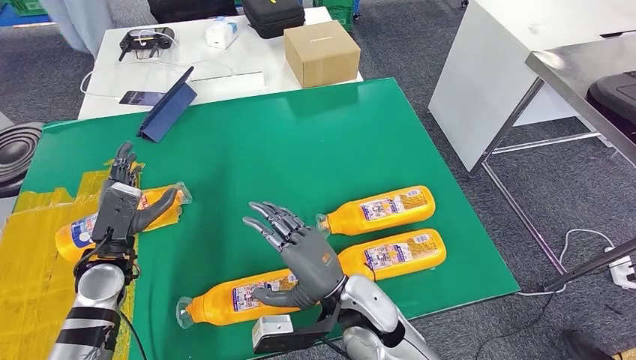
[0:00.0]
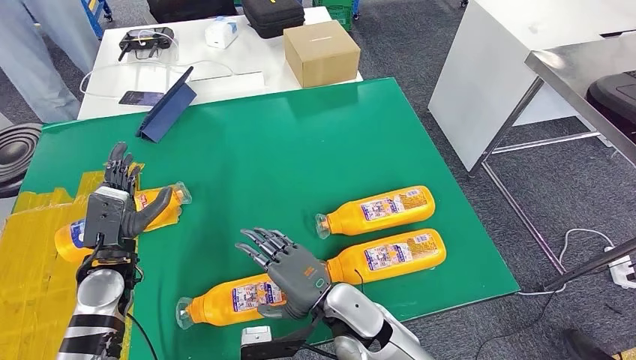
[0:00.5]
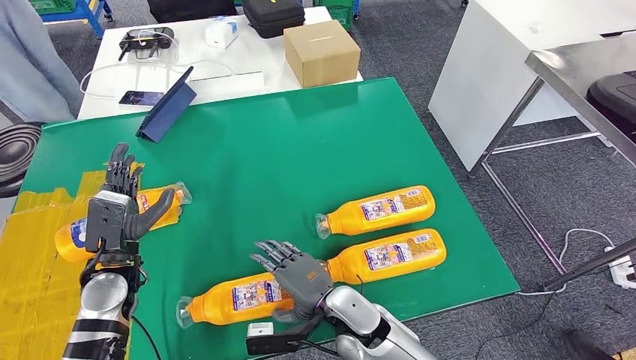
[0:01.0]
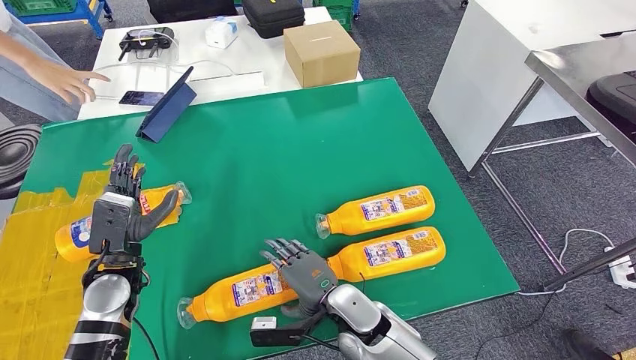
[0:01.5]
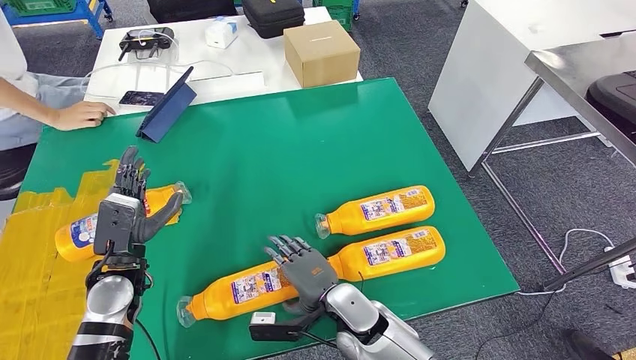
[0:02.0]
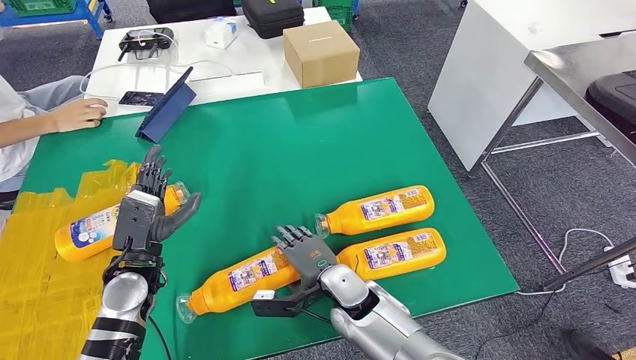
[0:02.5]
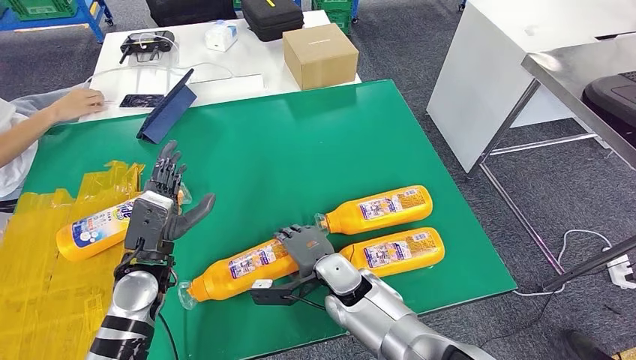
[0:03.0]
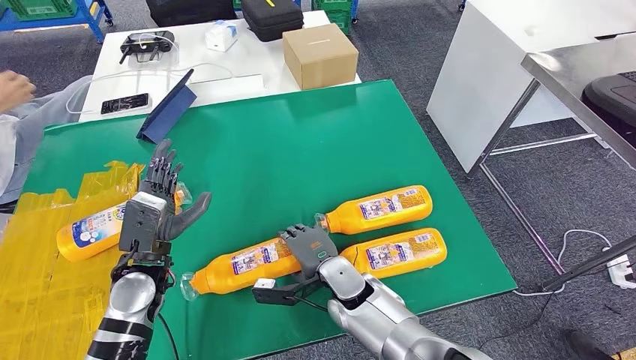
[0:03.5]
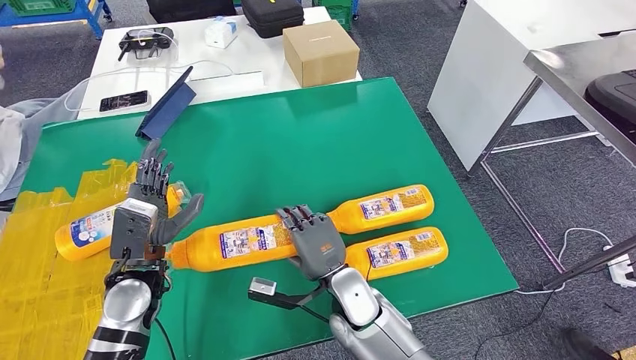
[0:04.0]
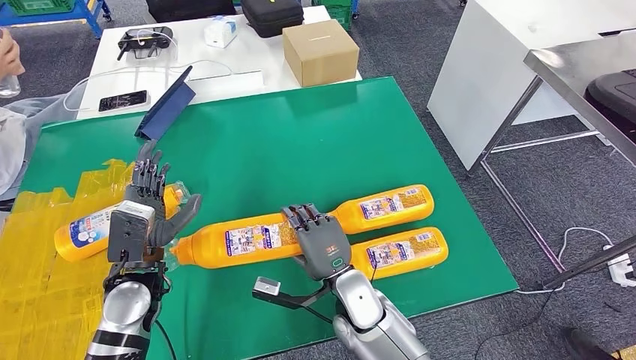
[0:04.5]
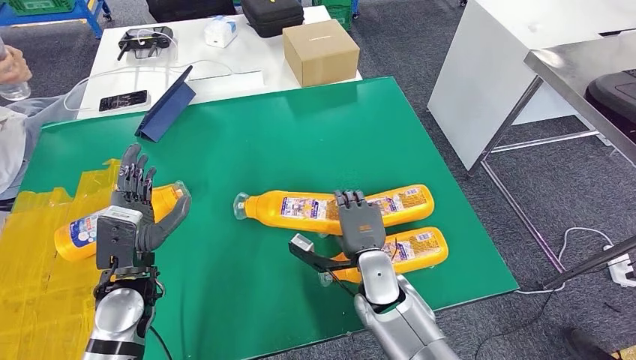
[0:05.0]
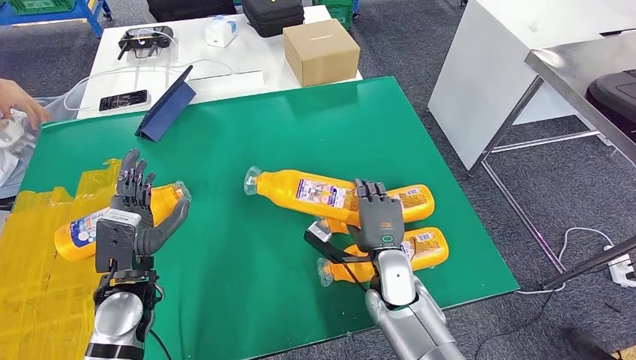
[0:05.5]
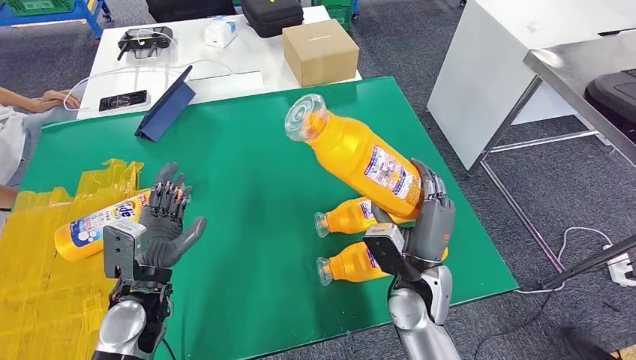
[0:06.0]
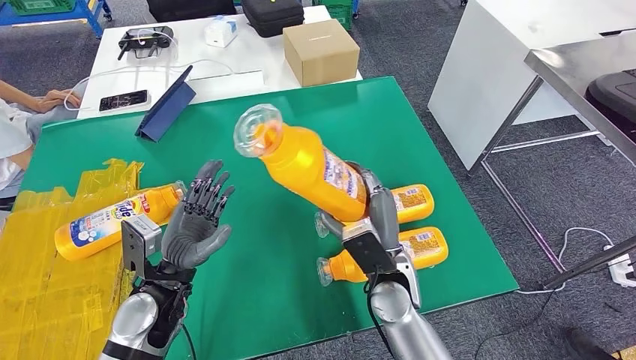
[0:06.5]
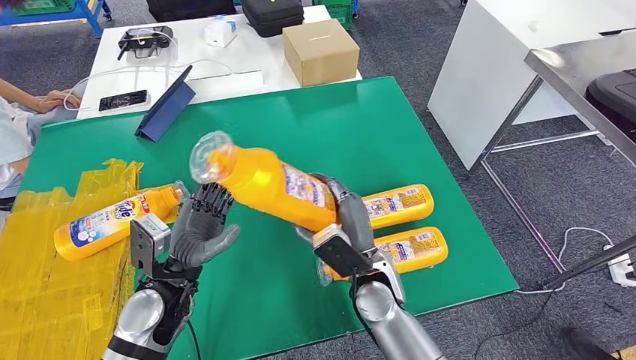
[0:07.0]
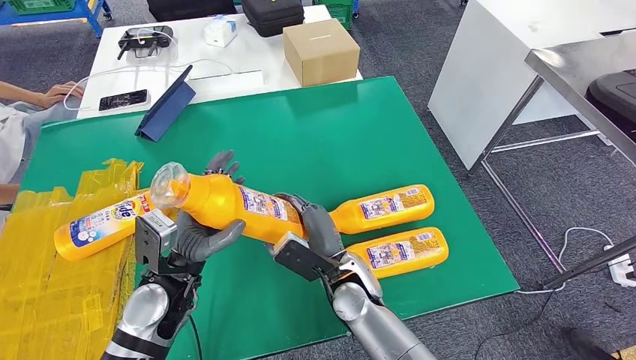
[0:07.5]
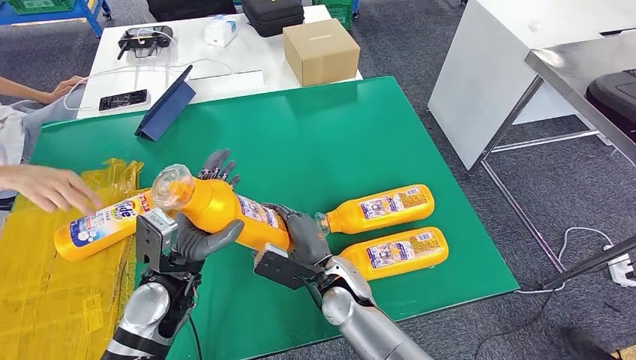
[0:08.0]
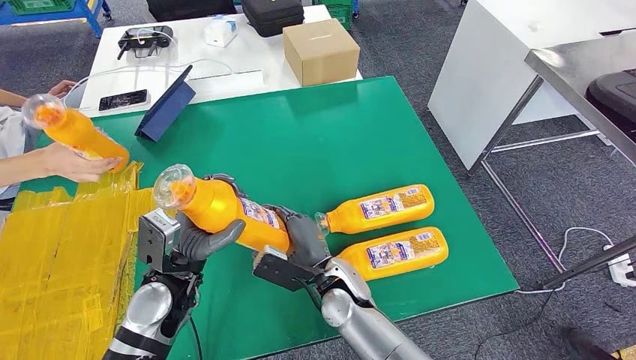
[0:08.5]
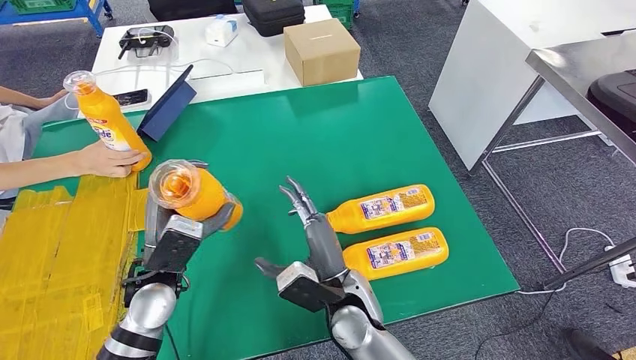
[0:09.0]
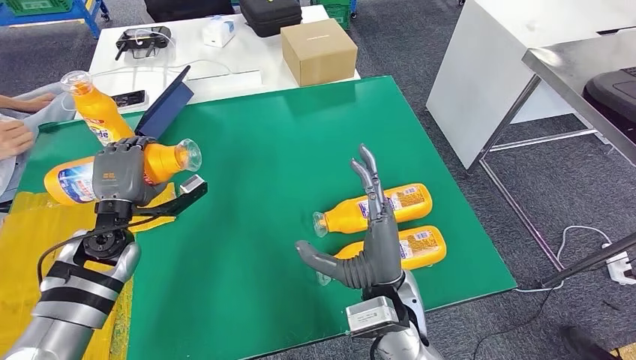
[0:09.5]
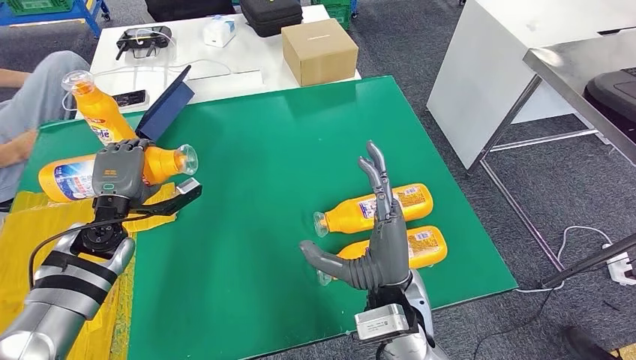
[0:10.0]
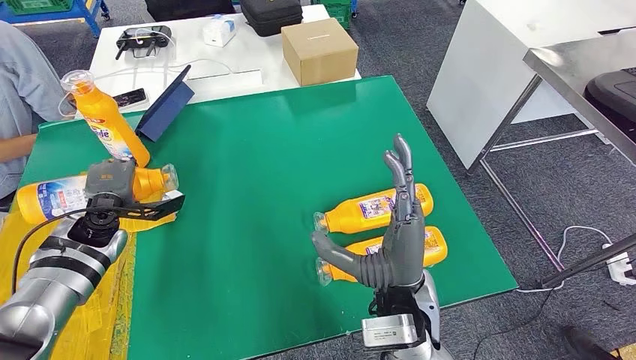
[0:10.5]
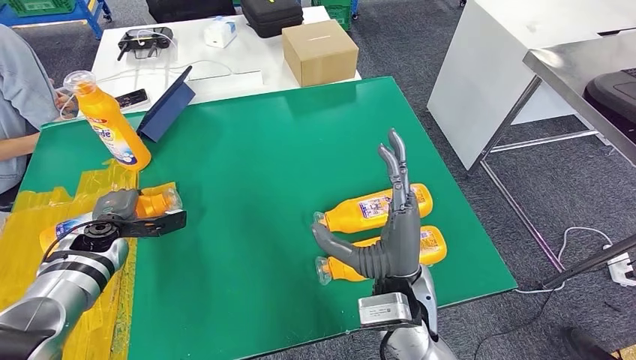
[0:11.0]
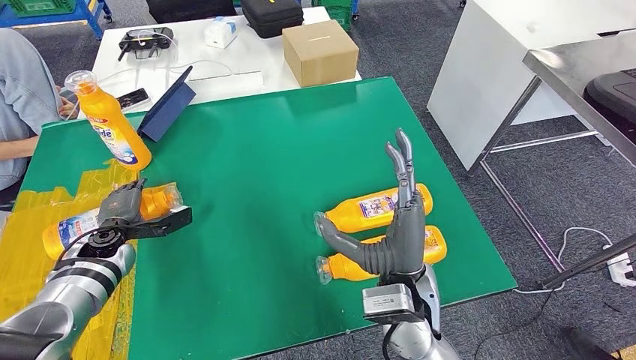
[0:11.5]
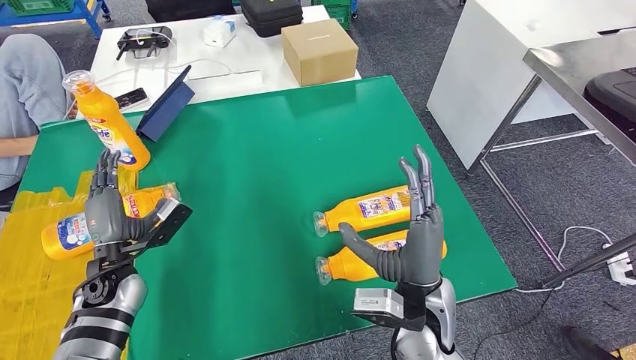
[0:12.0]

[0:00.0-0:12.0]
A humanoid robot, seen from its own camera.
Step, 0:03.0 to 0:05.5: Pick up the fast-moving consumer goods bottle from the table.
0:00.0 to 0:02.0: The right hand goes approximately 10 cm downward.
0:04.0 to 0:06.0: The right hand moves to the right, approximately 10 cm.
0:10.0 to 0:12.0: The left hand moves downward and backward, roughly 10 cm.

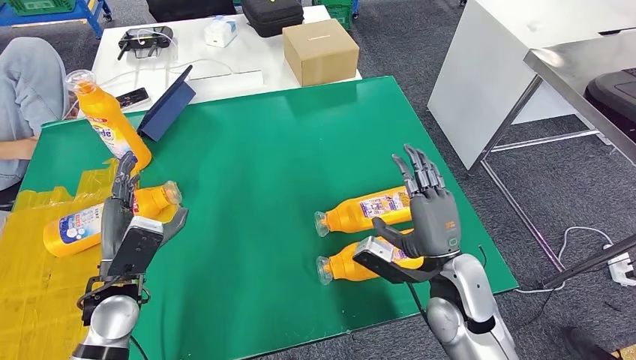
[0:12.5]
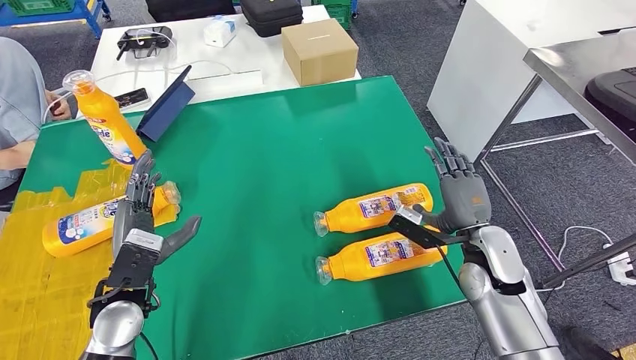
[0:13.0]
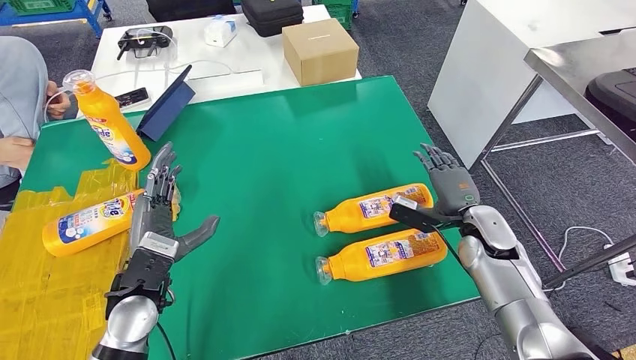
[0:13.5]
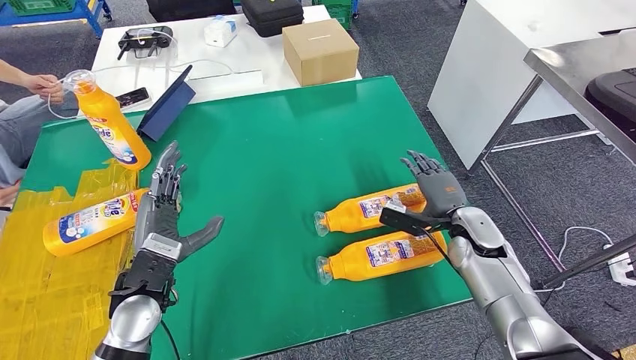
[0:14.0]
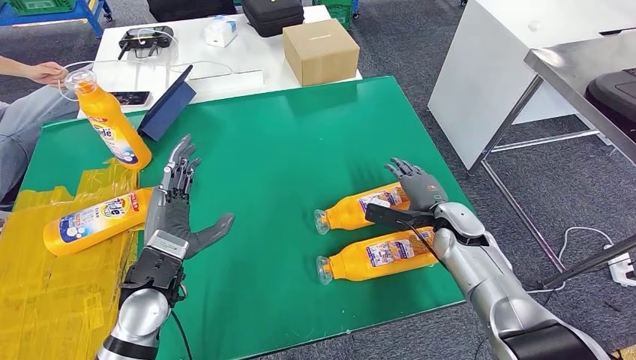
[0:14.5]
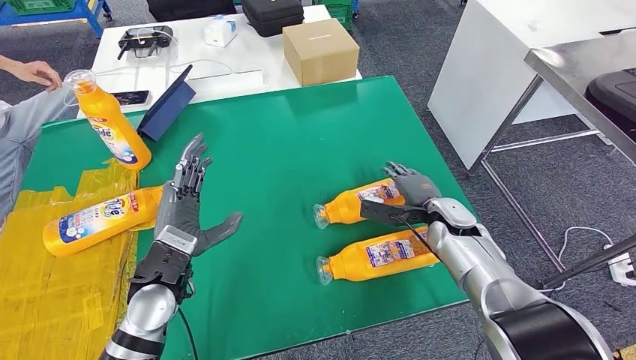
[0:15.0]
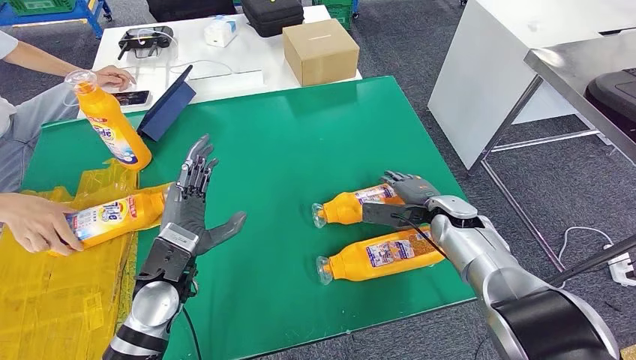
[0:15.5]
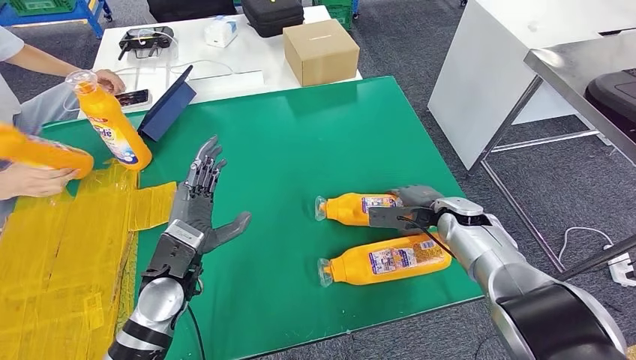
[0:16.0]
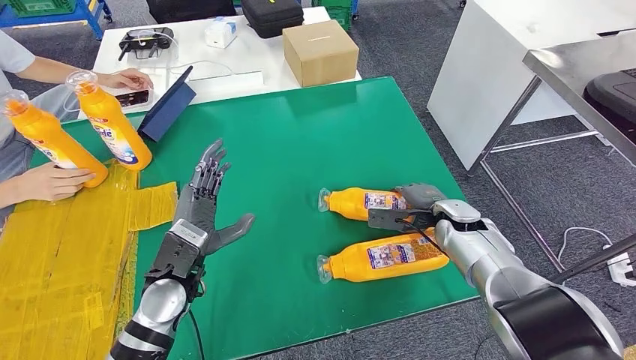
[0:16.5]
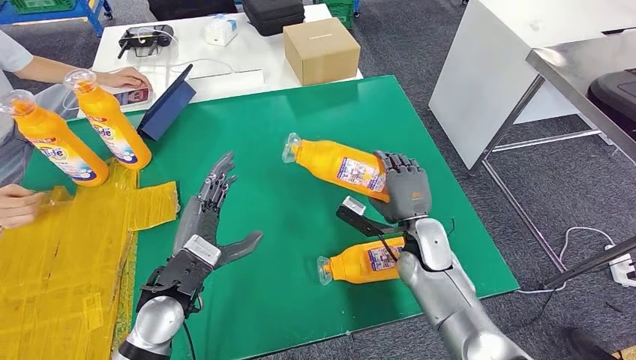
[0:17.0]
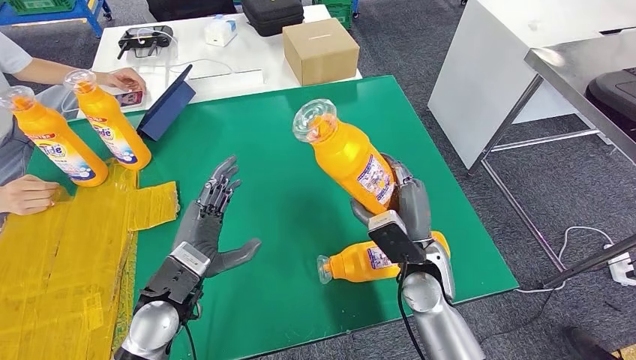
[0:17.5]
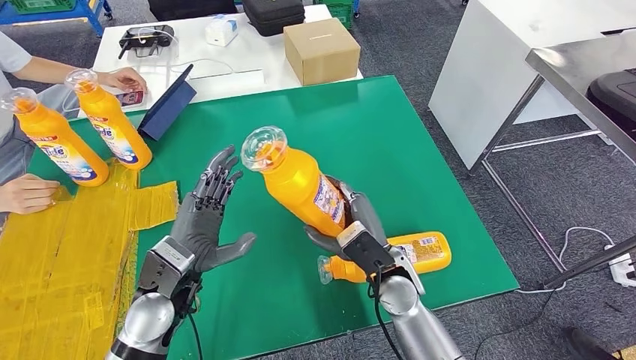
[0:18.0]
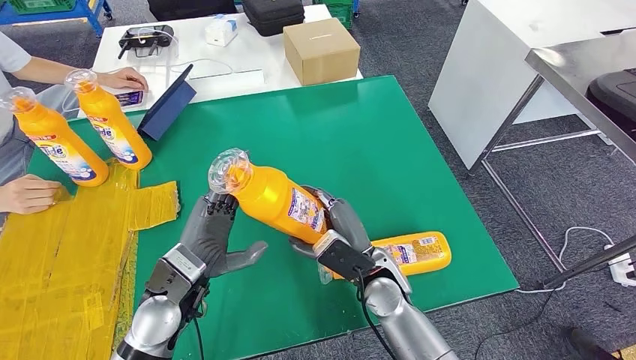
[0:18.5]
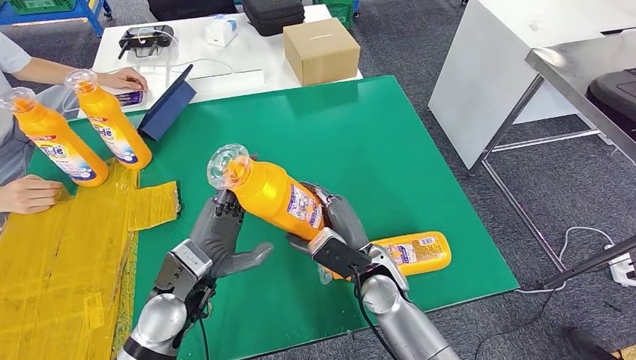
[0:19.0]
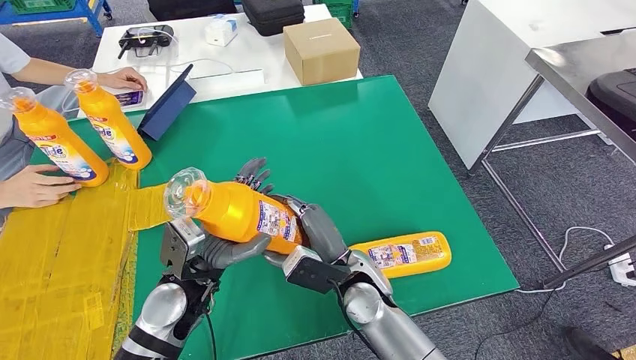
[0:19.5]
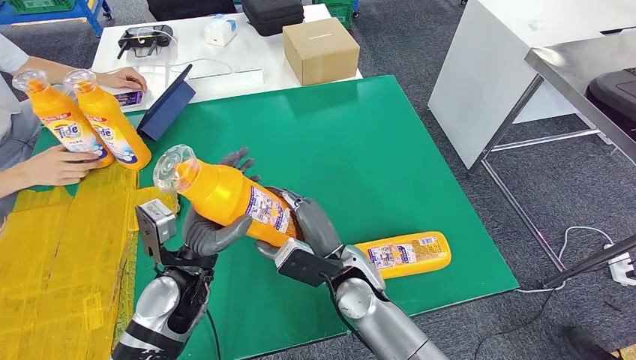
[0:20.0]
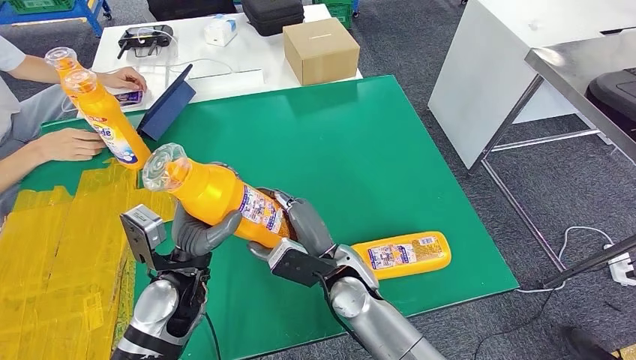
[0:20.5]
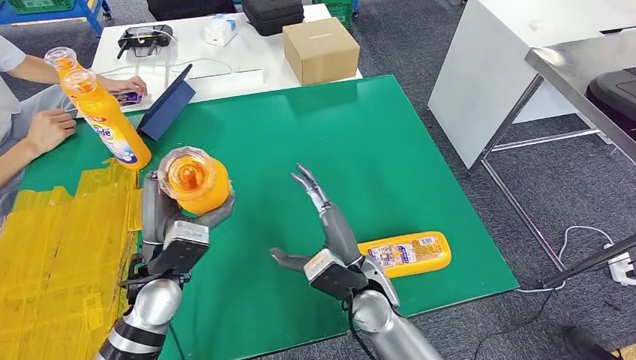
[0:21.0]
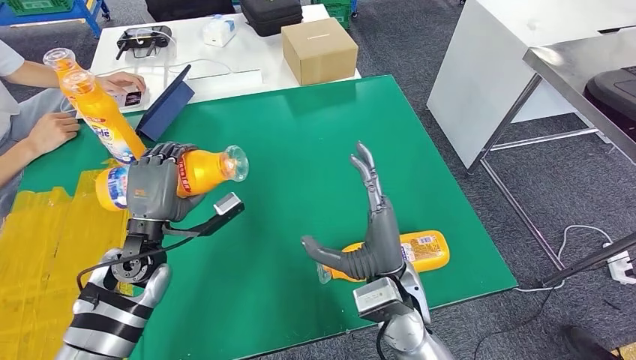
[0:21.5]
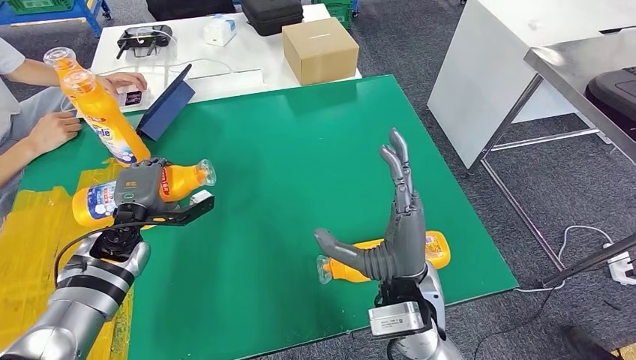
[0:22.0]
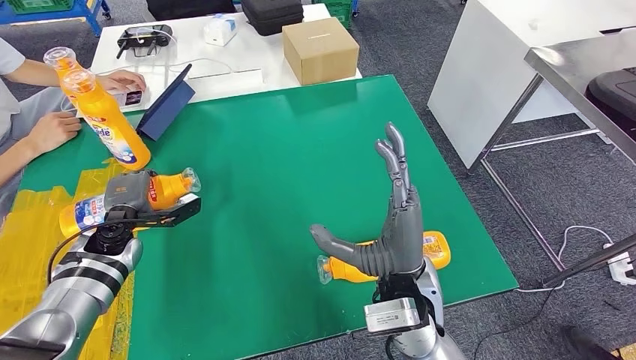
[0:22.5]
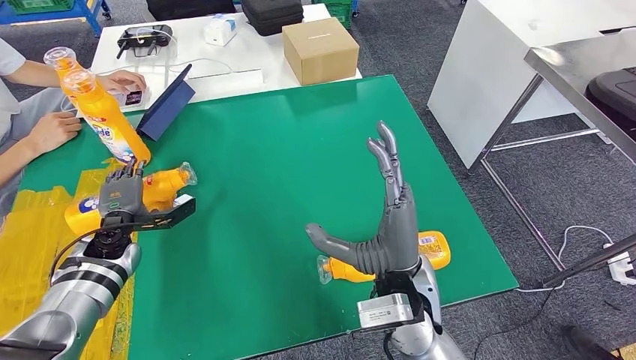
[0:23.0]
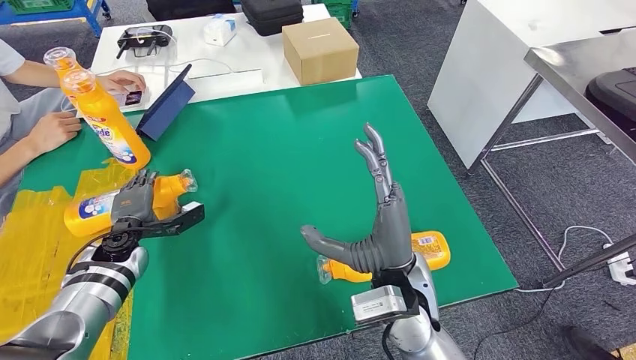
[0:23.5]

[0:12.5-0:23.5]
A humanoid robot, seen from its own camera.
Step, 0:16.0 to 0:19.5: Pick up the fast-moving consumer goods bottle from the table.
0:12.5 to 0:14.5: The left hand moves to the right, some 5 cm, while the right hand travels forward, to the right and downward by approximately 15 cm.
0:18.0 to 0:20.0: The right hand goes approximately 5 cm to the left.
0:21.5 to 0:23.5: The left hand is displaced to the left, downward and forward by some 15 cm.
